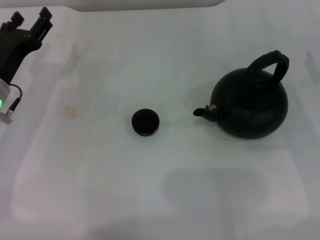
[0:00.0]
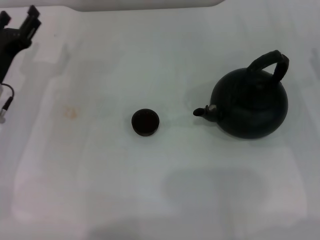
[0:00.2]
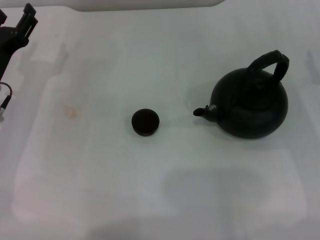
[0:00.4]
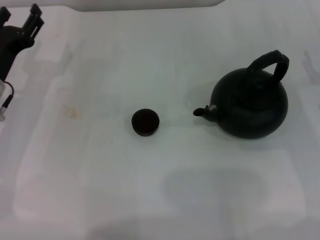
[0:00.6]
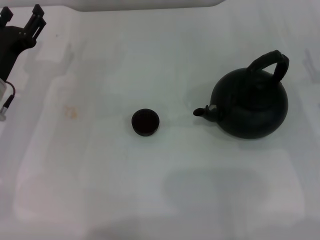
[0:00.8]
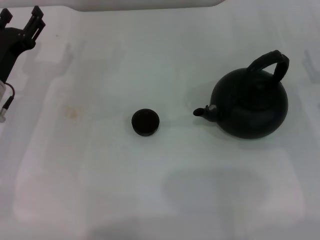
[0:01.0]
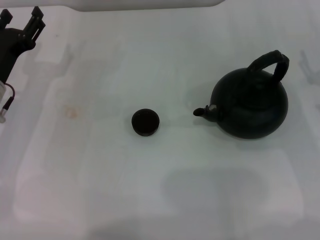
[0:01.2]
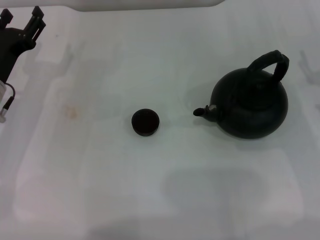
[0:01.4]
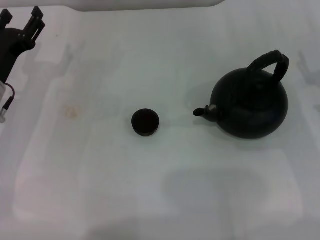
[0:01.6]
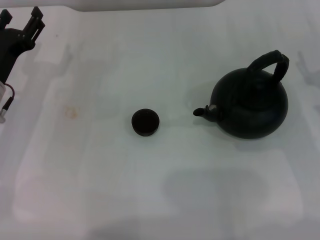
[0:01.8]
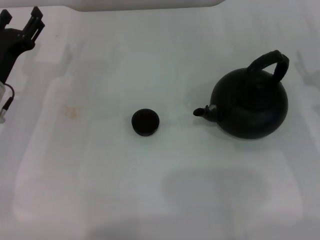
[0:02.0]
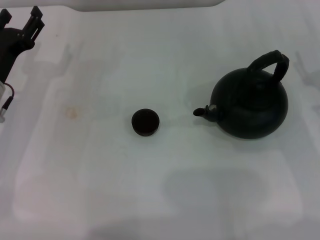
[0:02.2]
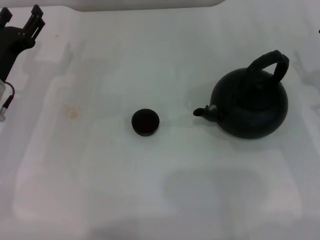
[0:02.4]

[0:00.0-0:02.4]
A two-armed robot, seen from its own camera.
Task of the whole recording: Grasp the handle of the teapot with one hand and pour tea into the teacup.
0:00.0 to 0:01.2: There are only small adjustments of the grippers.
0:01.2 to 0:02.4: Neither gripper changes place.
